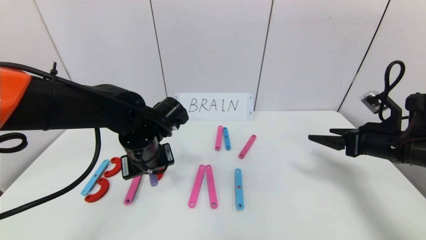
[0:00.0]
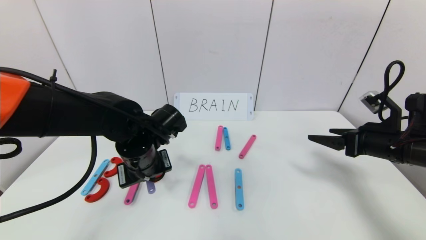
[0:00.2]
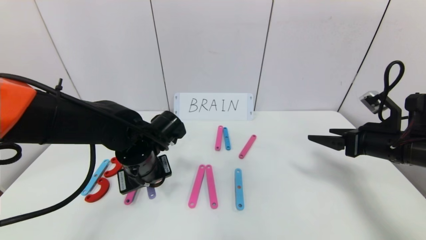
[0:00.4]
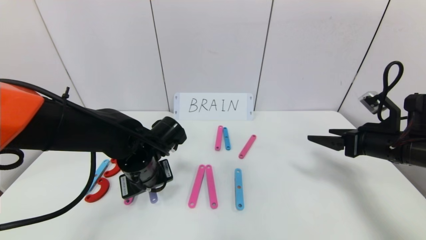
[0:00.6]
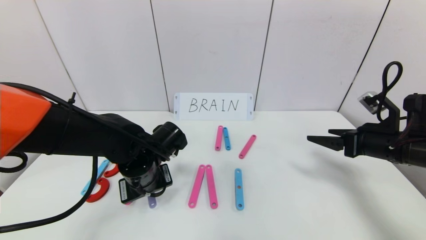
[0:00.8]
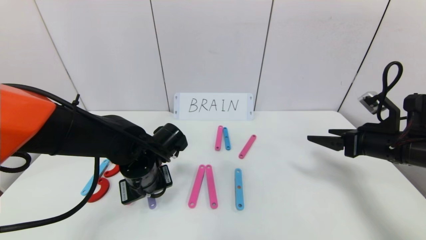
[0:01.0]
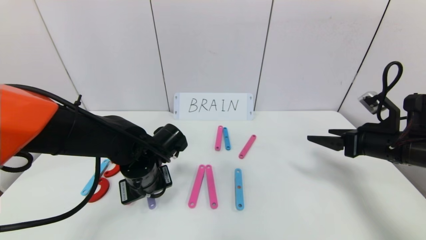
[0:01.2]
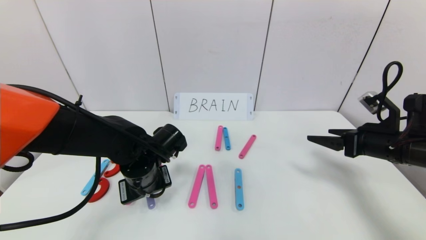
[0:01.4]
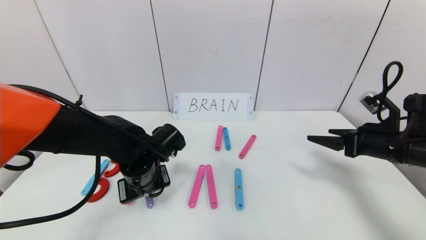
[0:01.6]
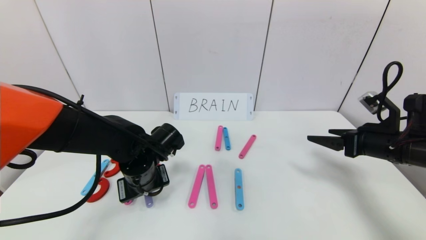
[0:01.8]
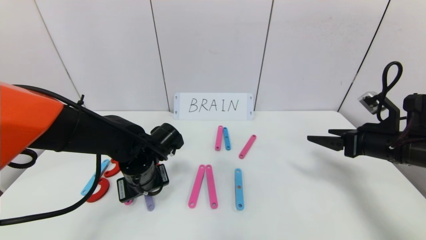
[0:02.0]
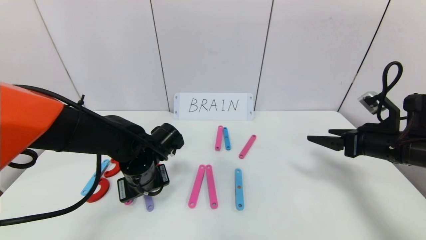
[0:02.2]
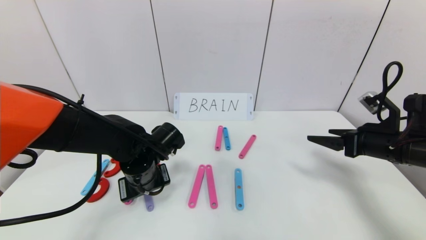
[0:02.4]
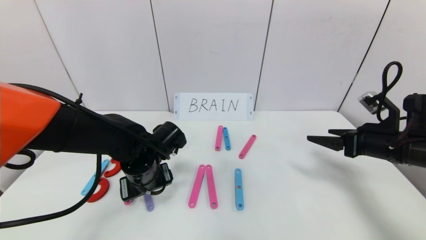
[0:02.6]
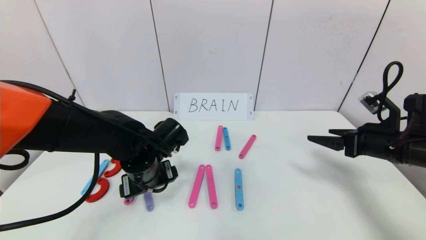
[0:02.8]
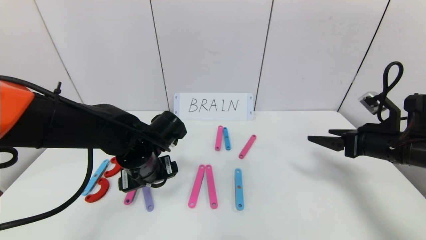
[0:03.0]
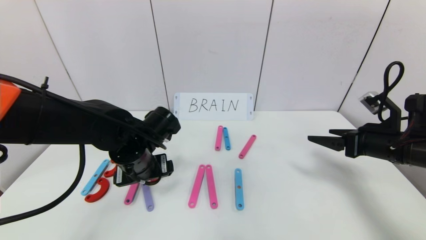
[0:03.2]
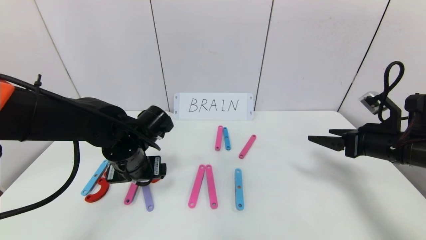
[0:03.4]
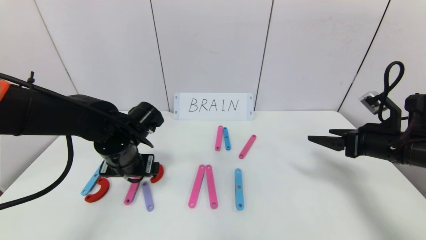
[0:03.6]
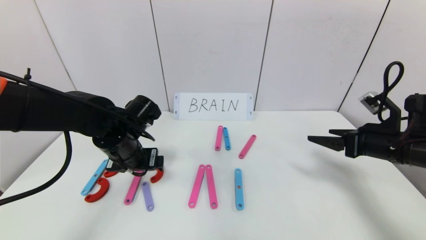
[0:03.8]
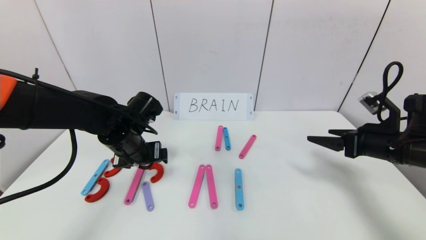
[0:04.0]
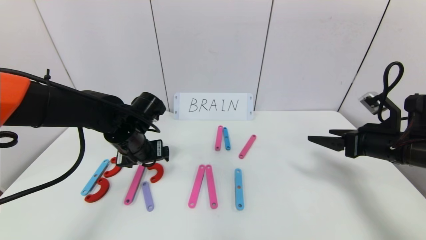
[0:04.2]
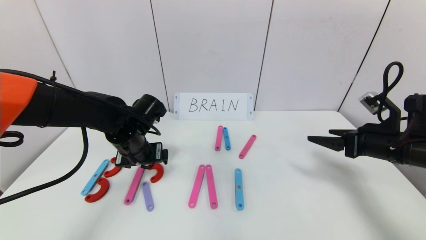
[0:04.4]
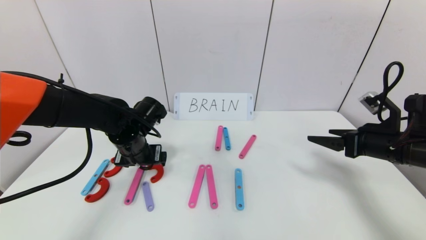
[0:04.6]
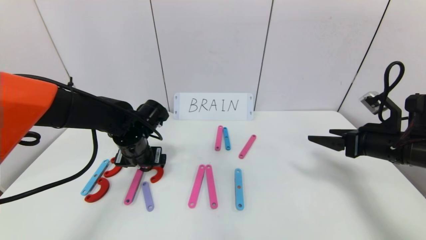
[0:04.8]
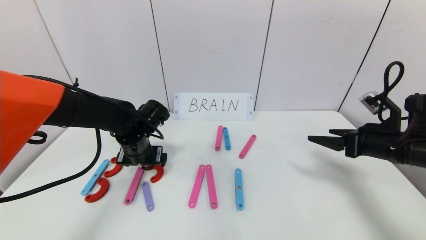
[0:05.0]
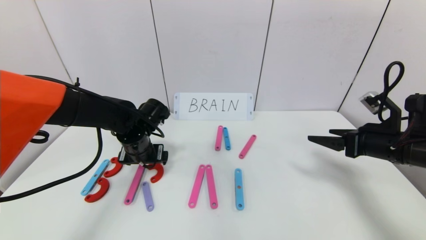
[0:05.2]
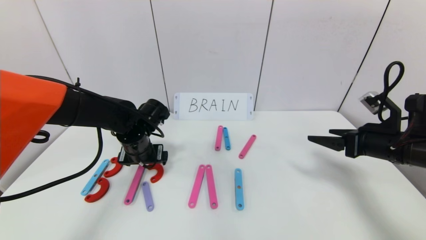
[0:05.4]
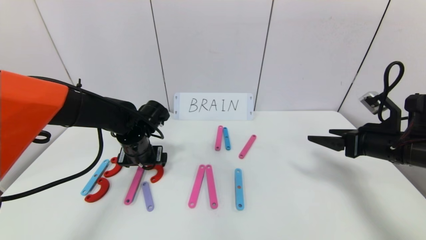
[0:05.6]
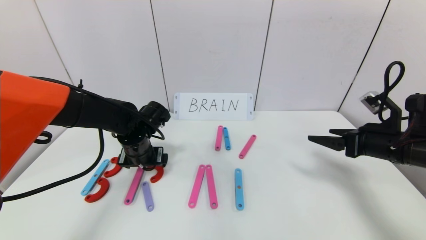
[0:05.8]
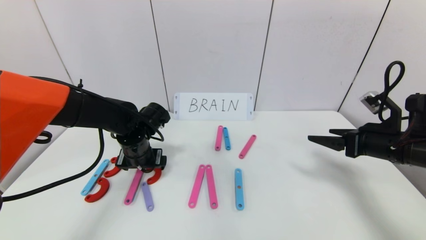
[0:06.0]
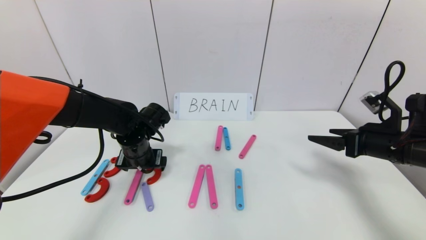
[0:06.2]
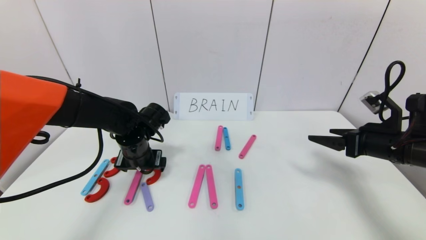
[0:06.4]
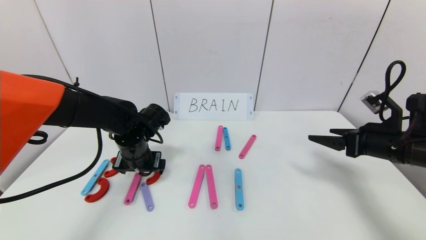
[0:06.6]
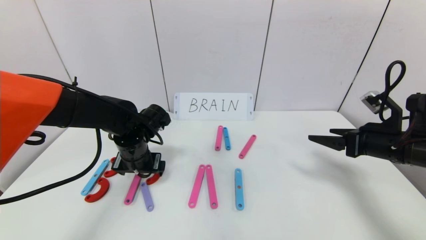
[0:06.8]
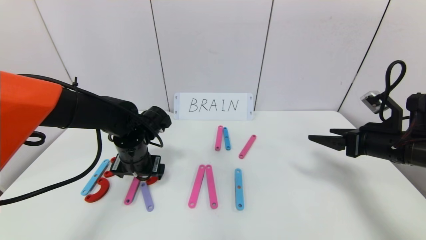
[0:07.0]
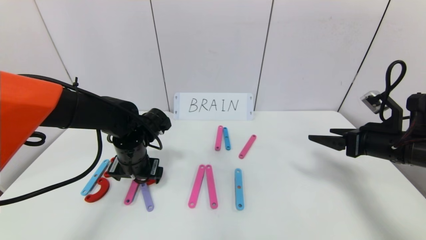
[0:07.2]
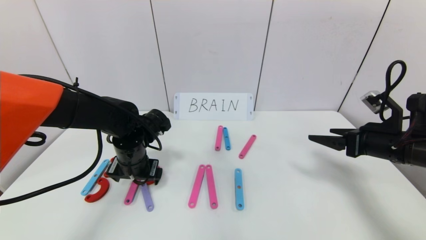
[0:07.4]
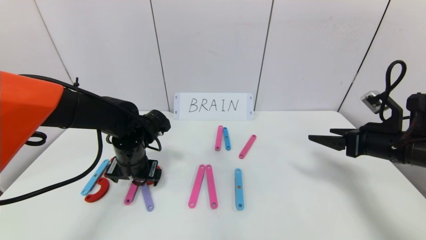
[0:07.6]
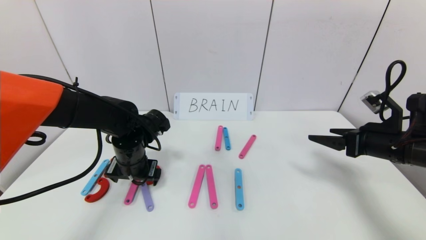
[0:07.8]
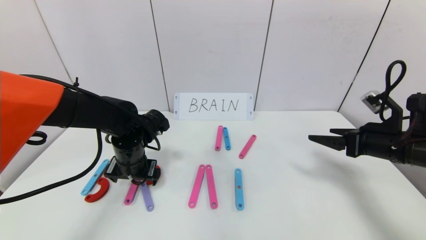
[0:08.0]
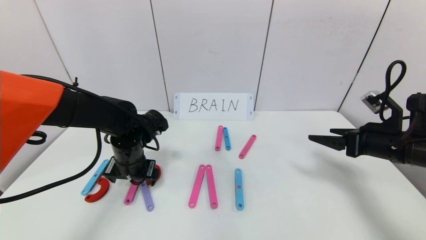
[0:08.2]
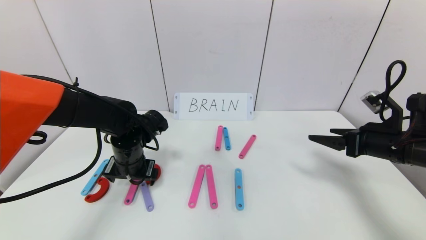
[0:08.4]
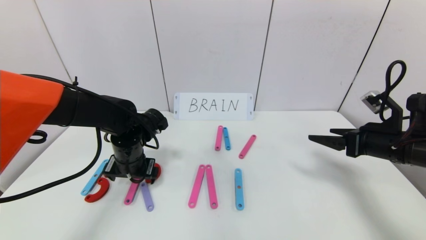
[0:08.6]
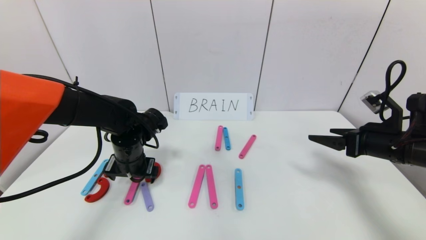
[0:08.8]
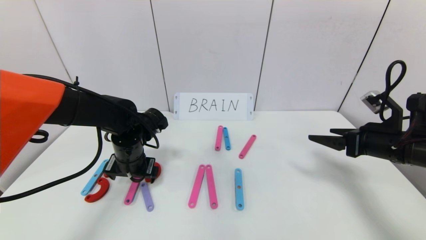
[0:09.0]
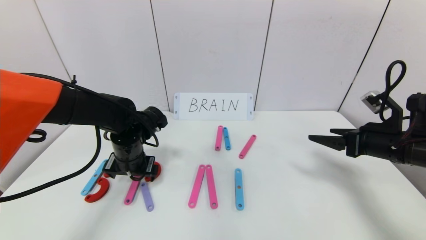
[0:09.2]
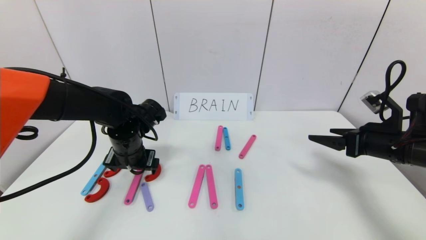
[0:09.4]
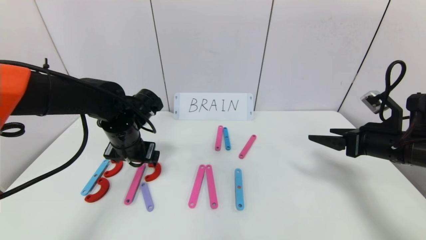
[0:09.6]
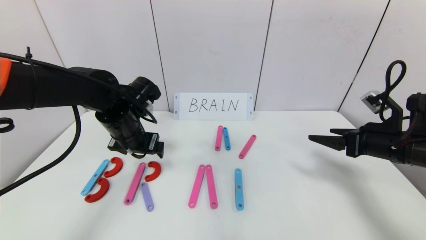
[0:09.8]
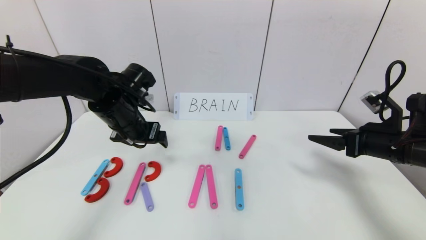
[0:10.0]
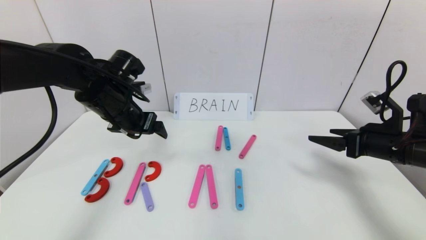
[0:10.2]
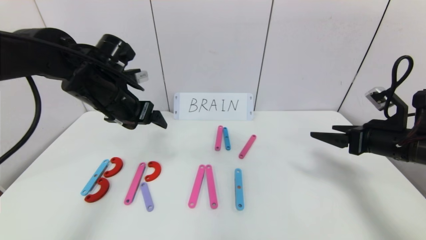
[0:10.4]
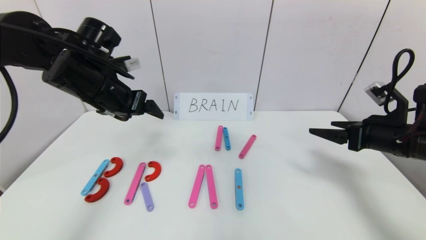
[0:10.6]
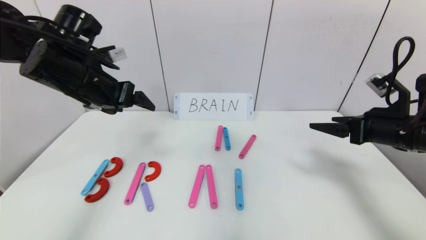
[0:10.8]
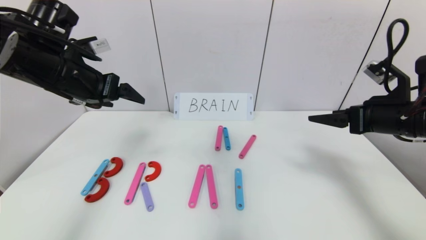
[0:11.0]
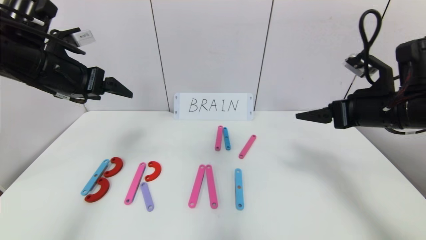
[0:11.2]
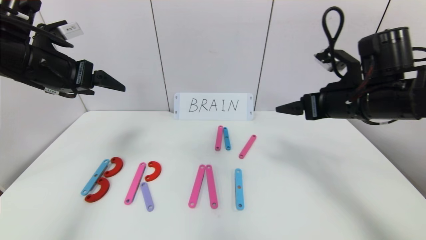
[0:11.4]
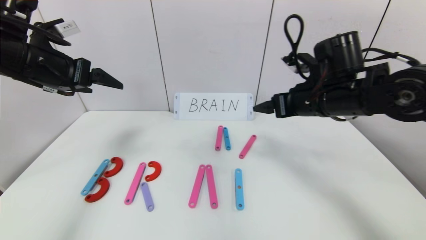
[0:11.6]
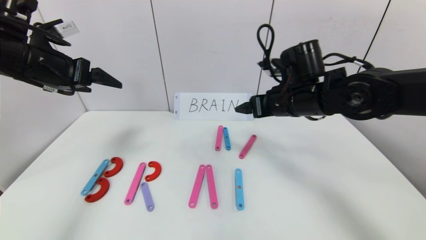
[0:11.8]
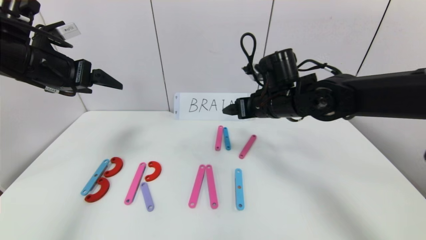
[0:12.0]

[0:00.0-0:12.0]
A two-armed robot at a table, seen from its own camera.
Task of the whole recording: rearrange the word baai as brain.
Step, 0:00.0 to 0:02.4: Place the character R between first character B and third character A.
0:00.0 to 0:01.6: The left gripper travels downward by about 5 cm.
0:01.6 to 0:03.0: The left gripper opens up.
0:03.0 to 0:04.4: The left gripper is displaced forward by roughly 5 cm.
0:04.4 to 0:07.6: The grippers move only a little.
0:07.6 to 0:09.0: The two grippers keep their place.
0:09.0 to 0:10.4: The left gripper moves upward, about 15 cm.
0:10.4 to 0:12.0: The left gripper heads to the left and upward, covering about 10 cm, while the right gripper shifts roughly 25 cm to the left and forward.

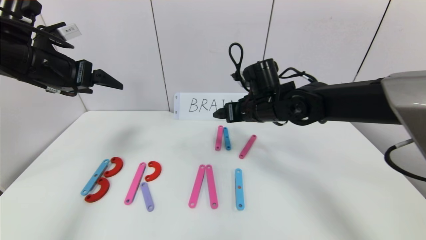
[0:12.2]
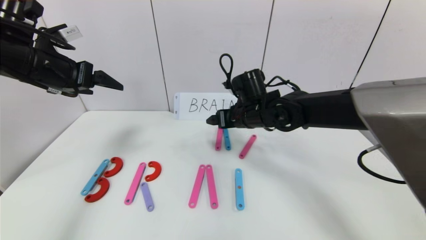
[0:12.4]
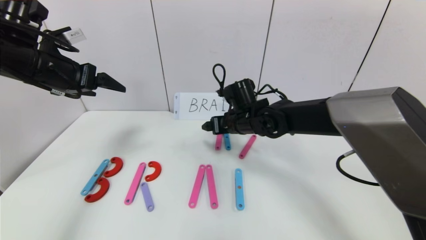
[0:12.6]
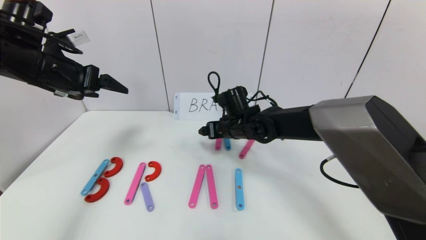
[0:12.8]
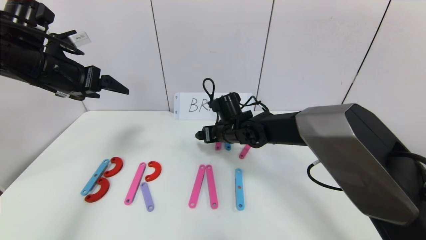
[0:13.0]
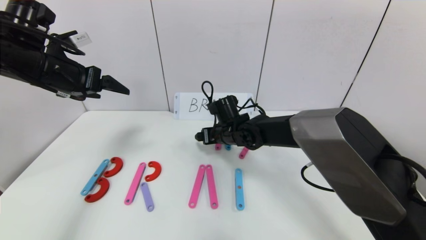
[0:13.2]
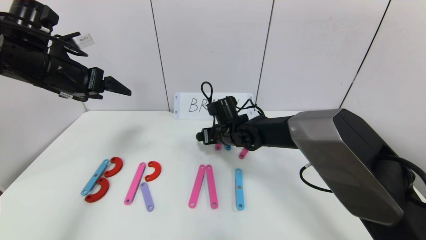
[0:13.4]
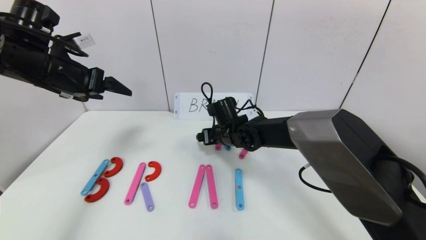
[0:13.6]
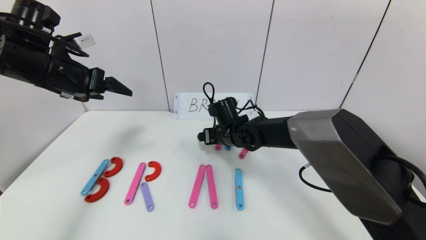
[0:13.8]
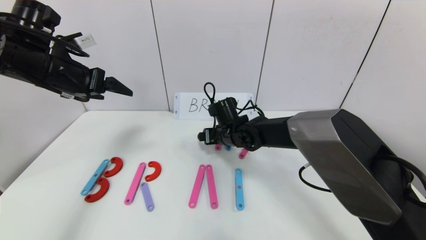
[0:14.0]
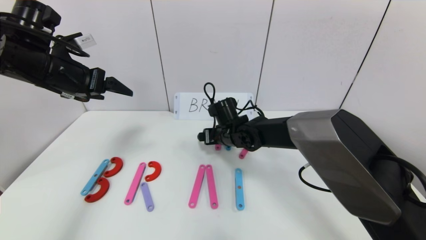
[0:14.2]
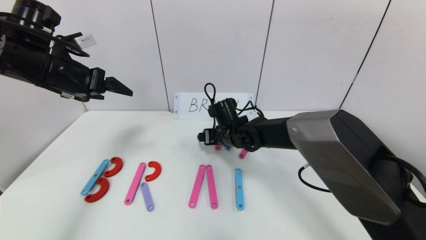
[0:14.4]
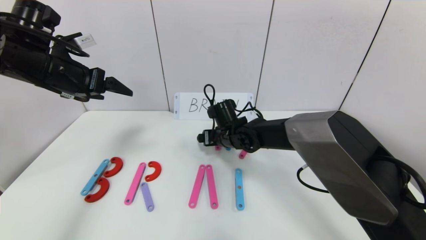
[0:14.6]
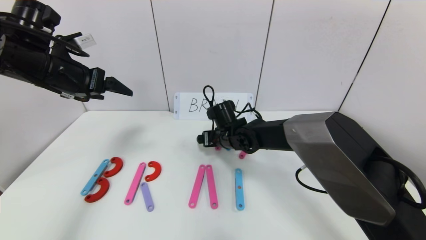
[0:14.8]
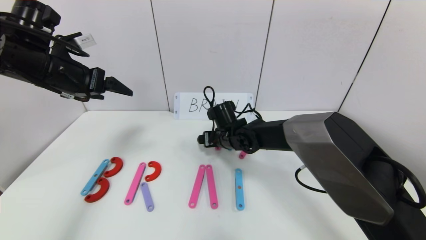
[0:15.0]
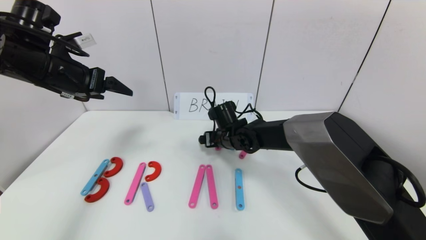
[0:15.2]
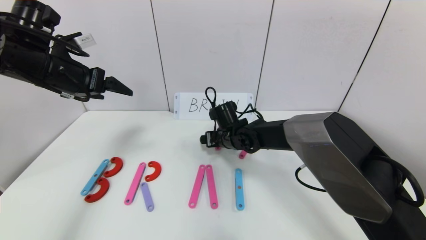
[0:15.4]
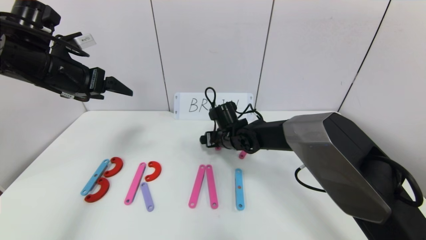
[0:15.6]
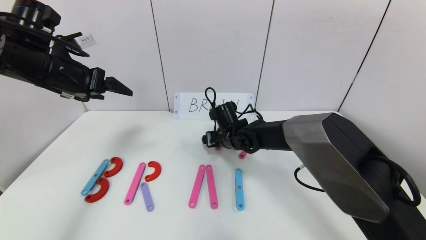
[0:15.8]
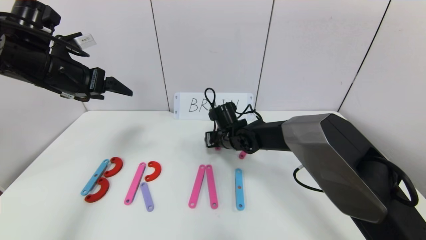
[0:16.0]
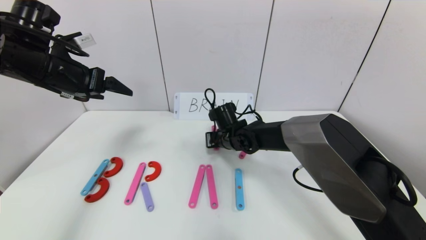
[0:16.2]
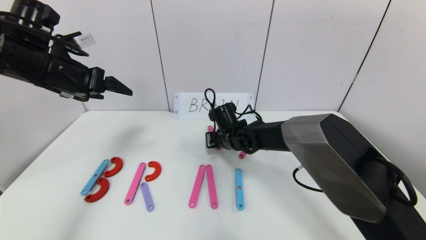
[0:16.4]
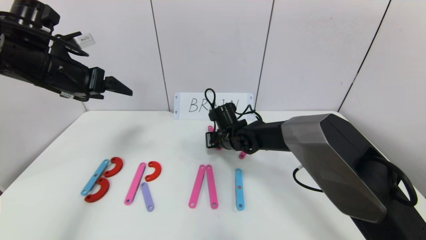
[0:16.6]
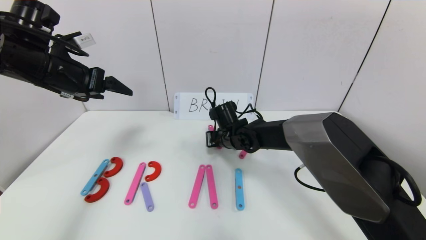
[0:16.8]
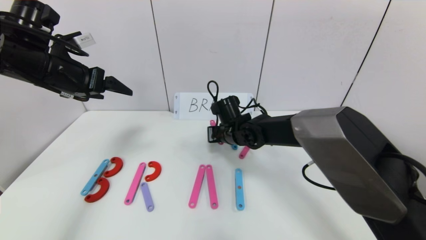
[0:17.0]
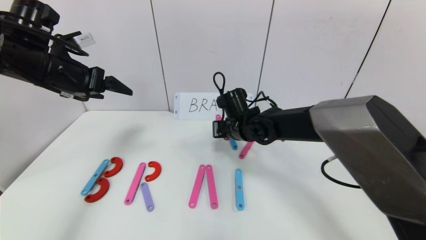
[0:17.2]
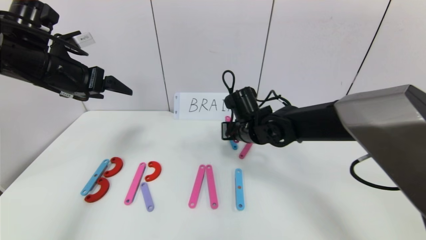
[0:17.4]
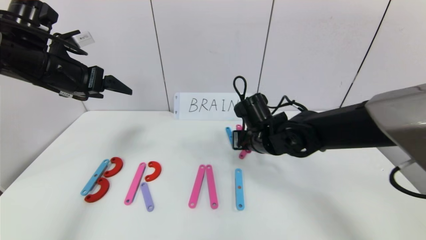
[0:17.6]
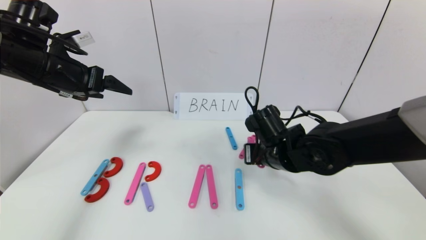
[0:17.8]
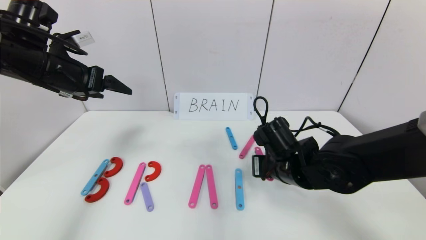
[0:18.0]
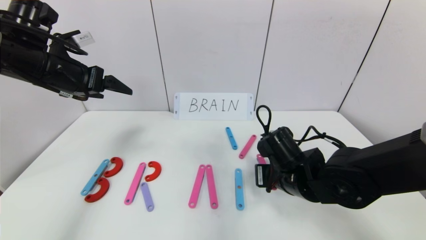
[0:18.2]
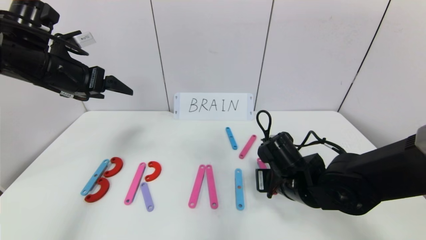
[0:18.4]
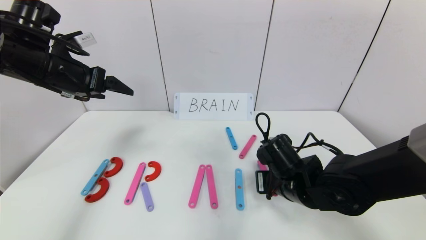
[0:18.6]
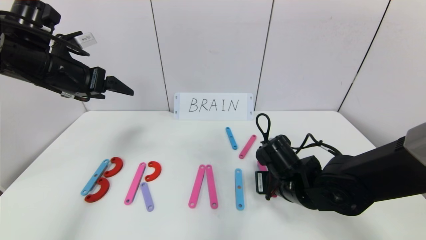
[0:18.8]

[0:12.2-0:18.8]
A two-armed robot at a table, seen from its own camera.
Task of the whole recording: rearrange the word baai as brain.
0:12.2 to 0:13.8: The right gripper heads downward and to the left, covering approximately 10 cm.
0:13.8 to 0:15.4: The grippers move only a little.
0:15.4 to 0:17.2: The right gripper changes place by about 5 cm, and closes.
0:17.2 to 0:18.8: The right gripper is displaced backward and to the right by about 15 cm.
